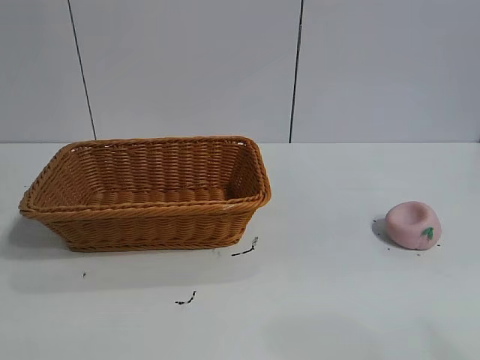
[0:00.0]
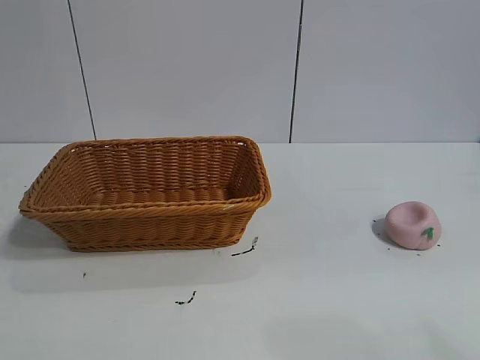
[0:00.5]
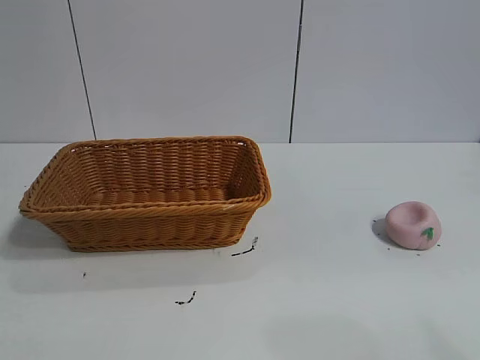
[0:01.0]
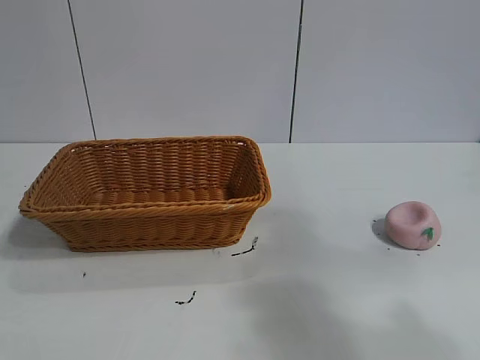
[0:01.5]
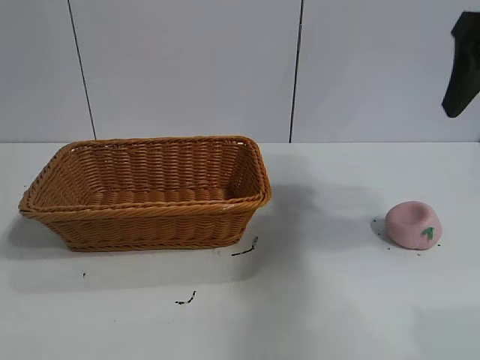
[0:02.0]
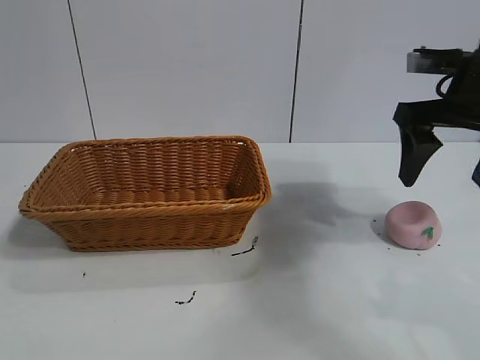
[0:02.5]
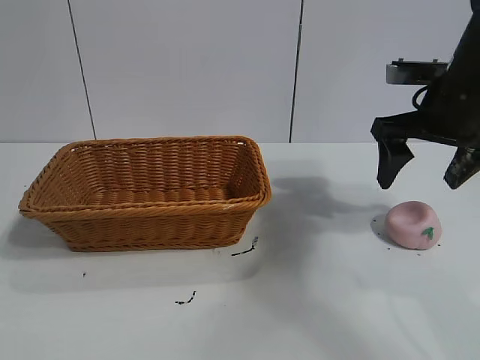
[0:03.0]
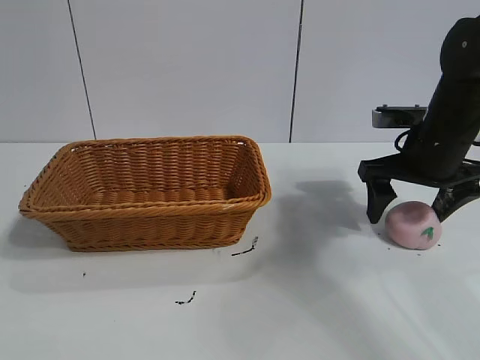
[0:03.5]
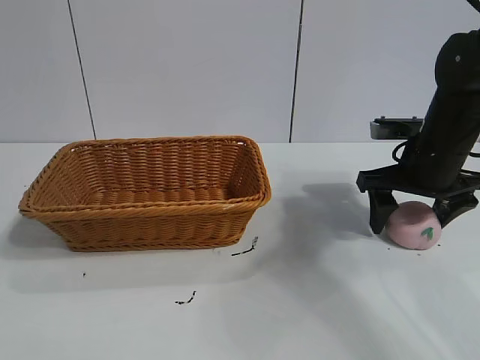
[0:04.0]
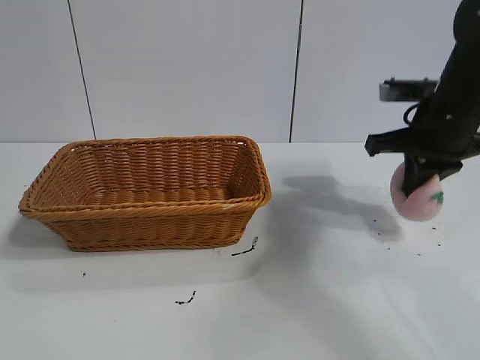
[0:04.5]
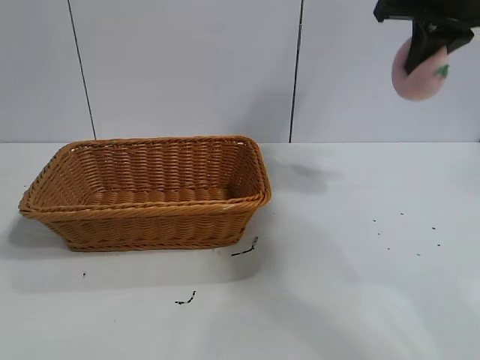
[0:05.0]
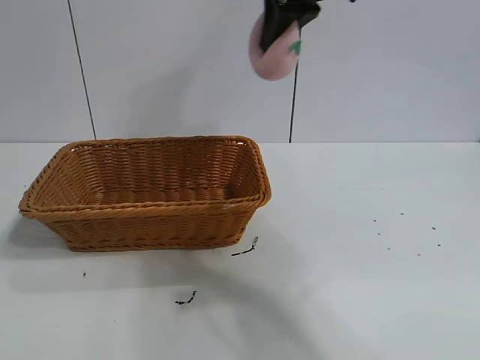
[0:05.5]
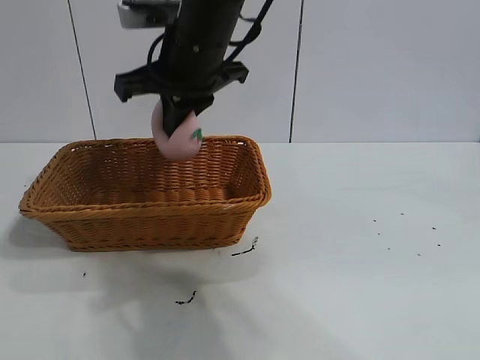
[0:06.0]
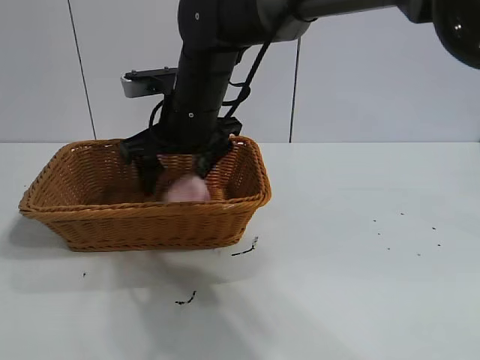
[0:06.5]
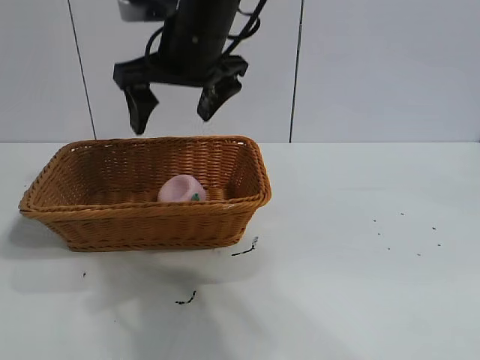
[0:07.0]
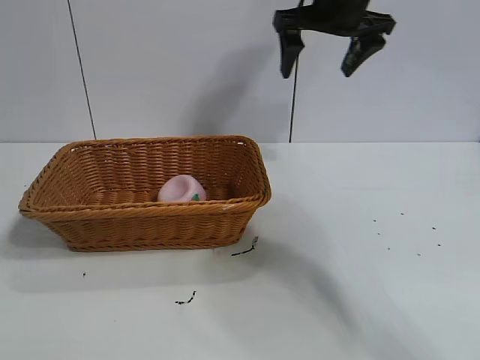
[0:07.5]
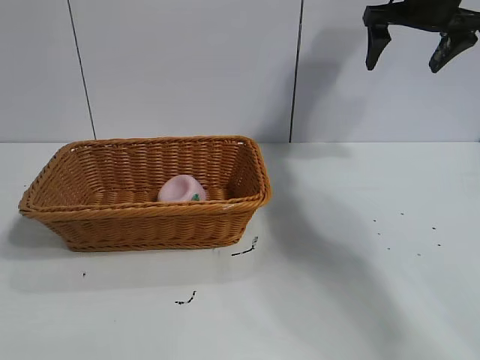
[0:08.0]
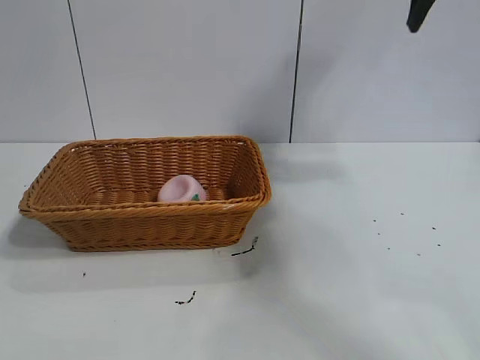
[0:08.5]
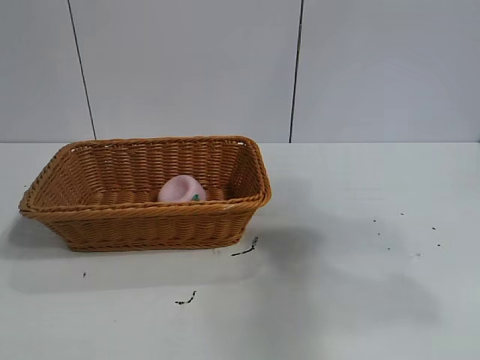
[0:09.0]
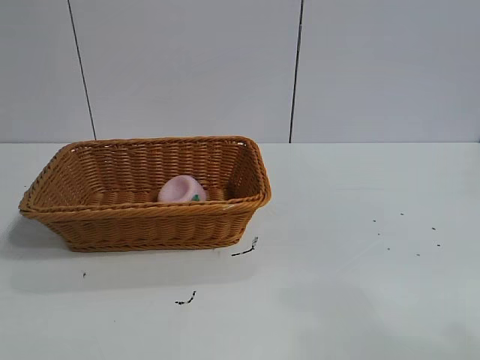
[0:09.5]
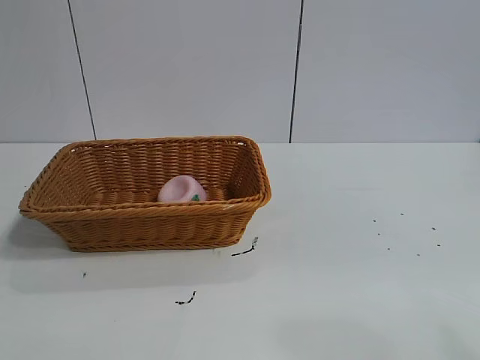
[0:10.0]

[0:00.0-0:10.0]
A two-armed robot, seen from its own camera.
Task of the whole recording: pick up the peach and put it into the basket.
Step, 0:01.5 to 0:04.5: Grasp the peach with right gripper.
Step, 0:05.0 to 0:06.5: Place the peach in the basket with right gripper.

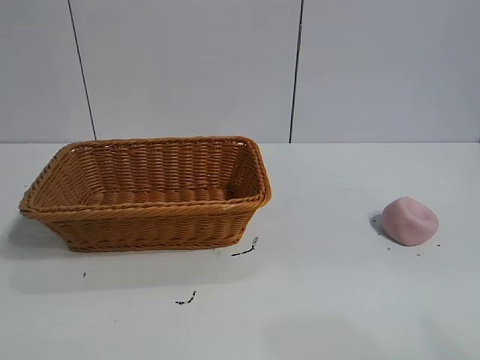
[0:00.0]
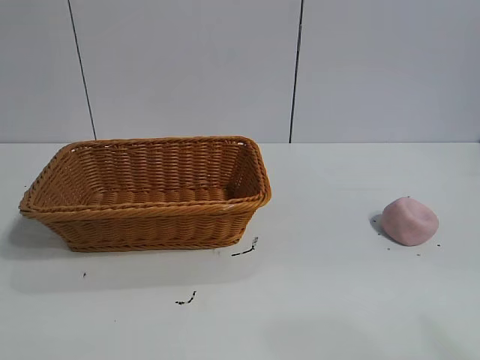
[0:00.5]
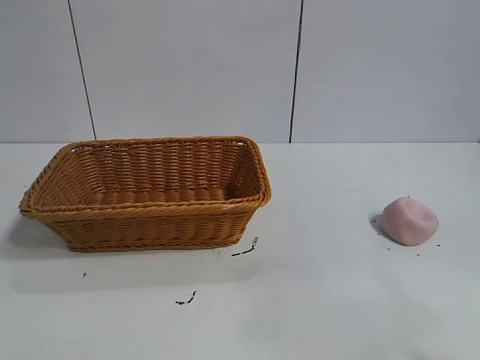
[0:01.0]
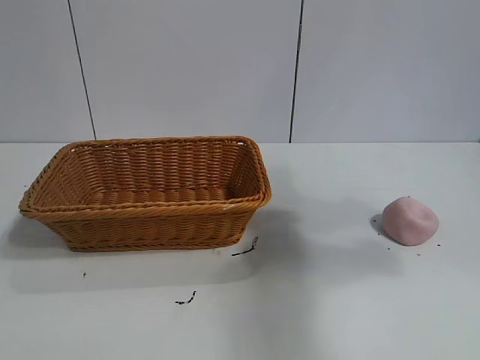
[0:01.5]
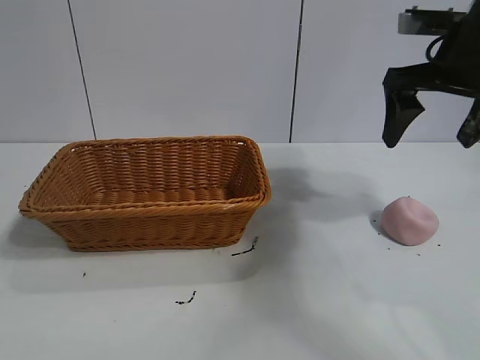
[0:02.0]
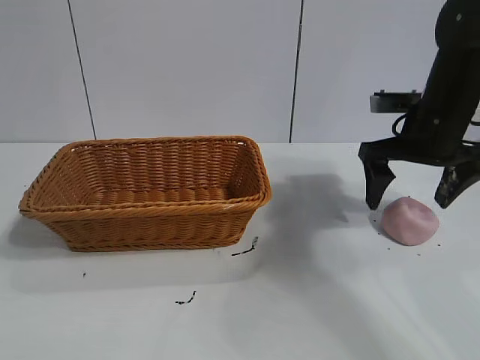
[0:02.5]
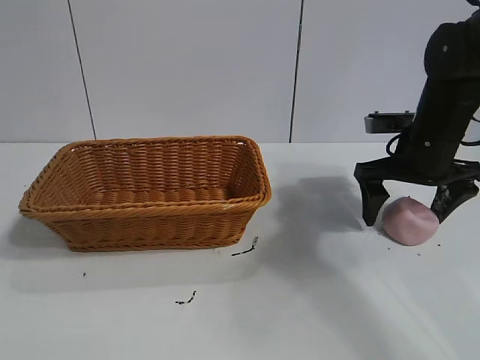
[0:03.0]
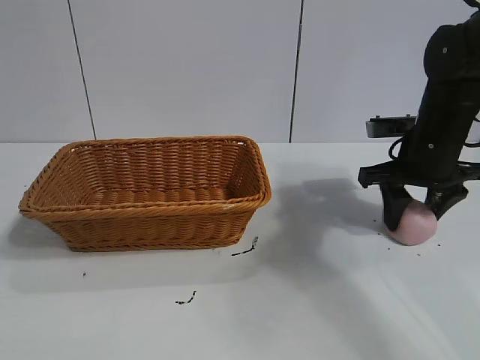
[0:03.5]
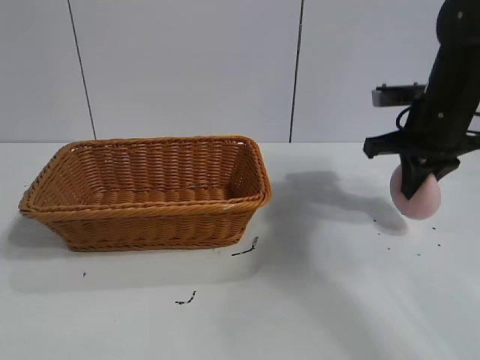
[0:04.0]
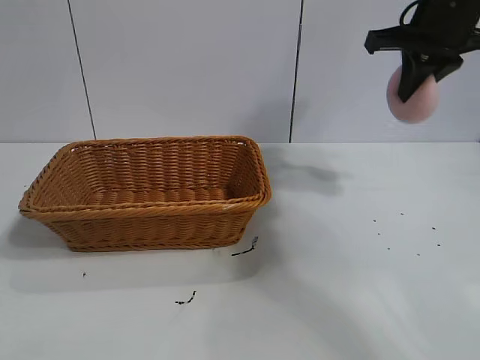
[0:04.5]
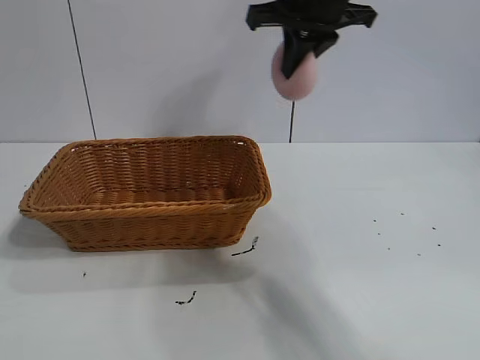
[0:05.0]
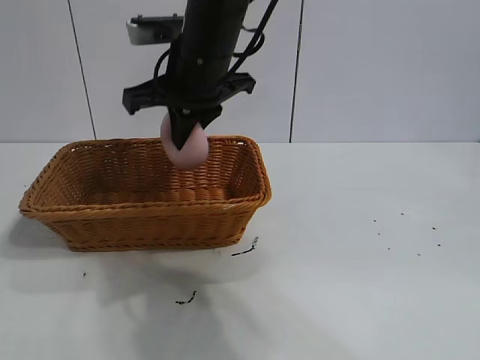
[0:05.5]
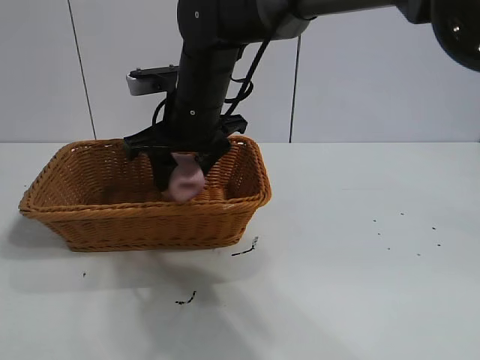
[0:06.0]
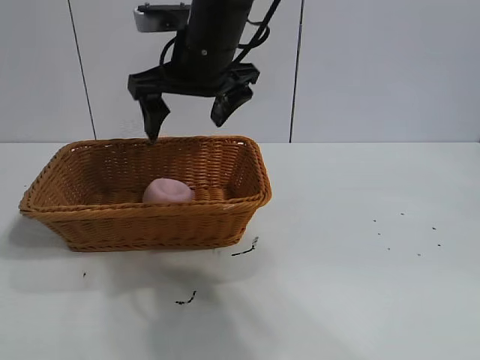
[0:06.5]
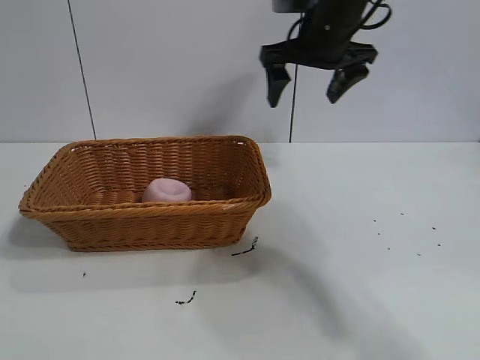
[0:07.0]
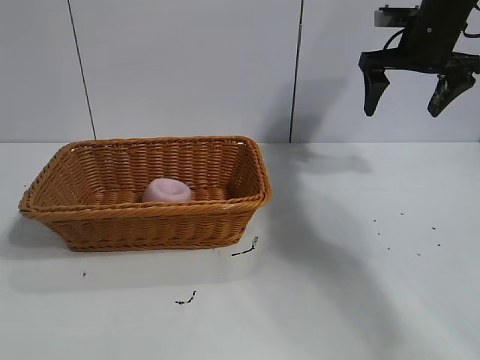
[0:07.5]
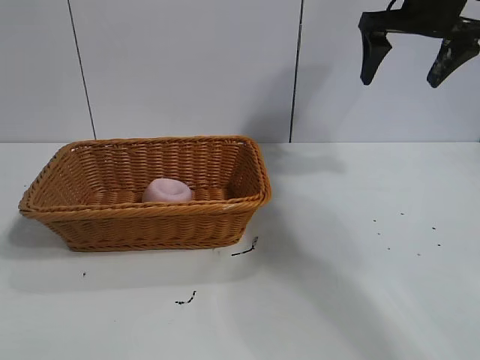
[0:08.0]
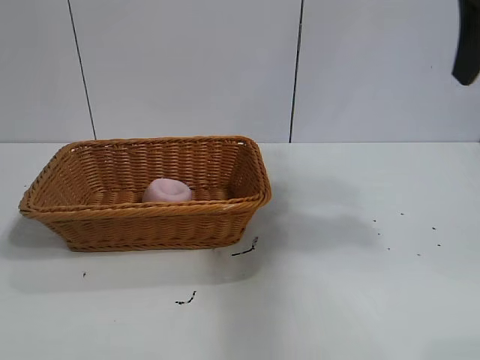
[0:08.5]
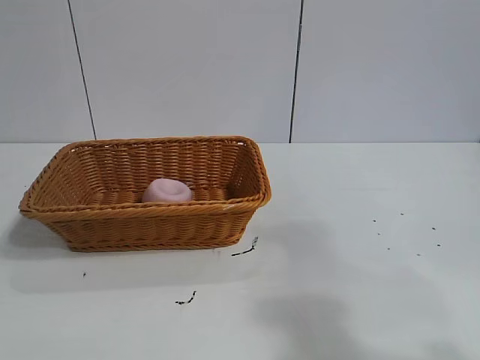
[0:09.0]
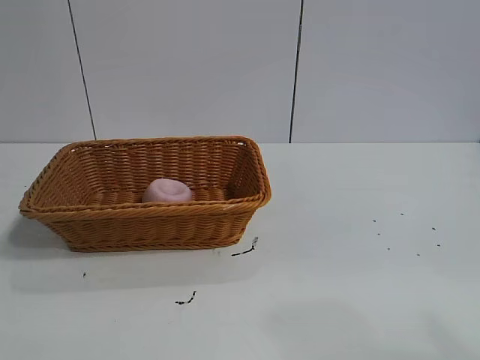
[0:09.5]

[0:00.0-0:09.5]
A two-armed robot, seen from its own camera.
Task of the whole recording: pick up the peach and put it into the basket.
Step, 0:01.0 to 0:03.5: Grasp the peach with right gripper.
Step, 0:04.0 to 0:06.0: Place the peach in the basket with right gripper.
